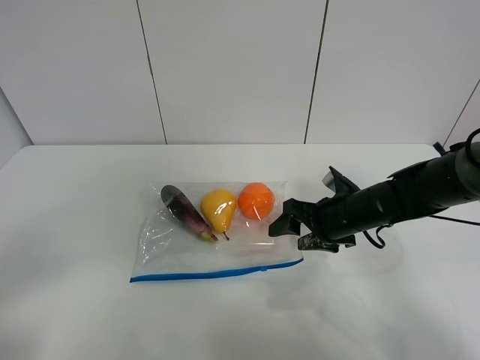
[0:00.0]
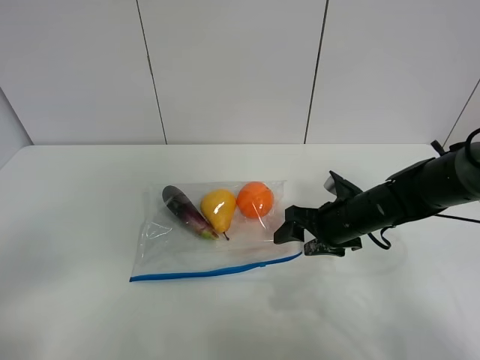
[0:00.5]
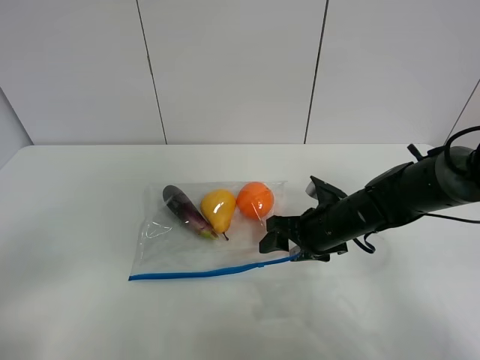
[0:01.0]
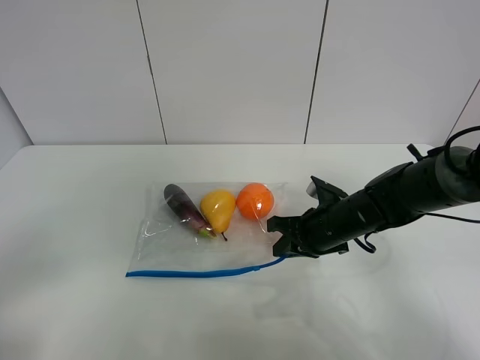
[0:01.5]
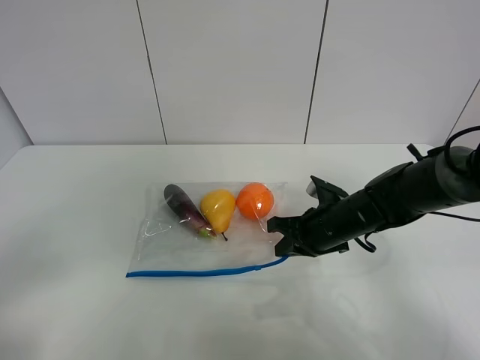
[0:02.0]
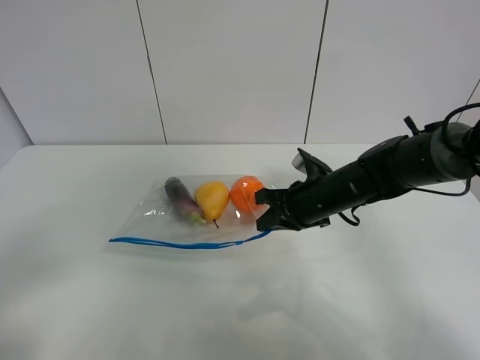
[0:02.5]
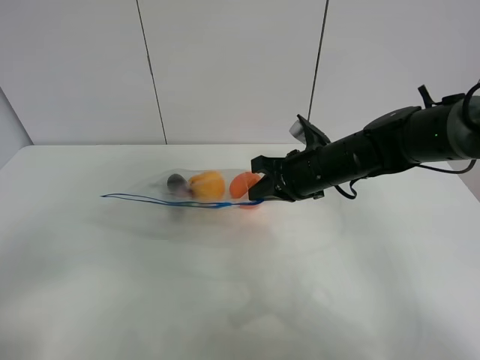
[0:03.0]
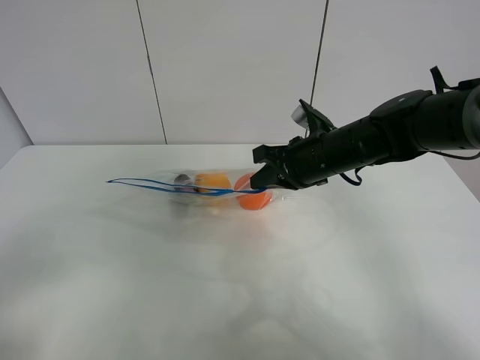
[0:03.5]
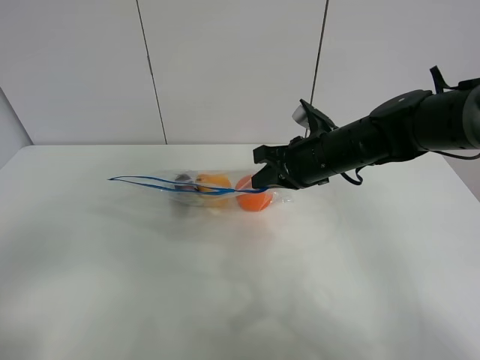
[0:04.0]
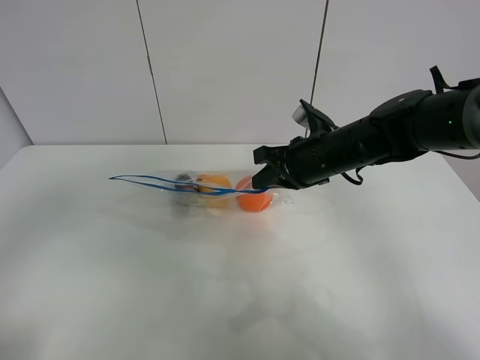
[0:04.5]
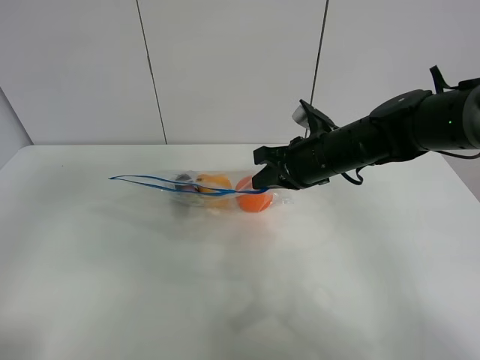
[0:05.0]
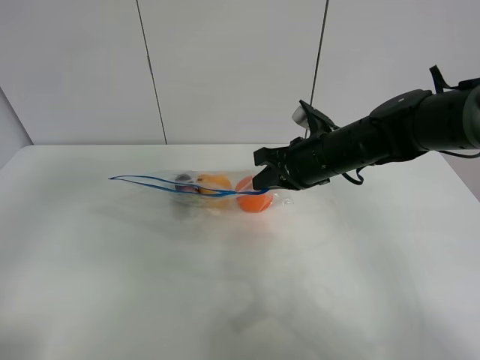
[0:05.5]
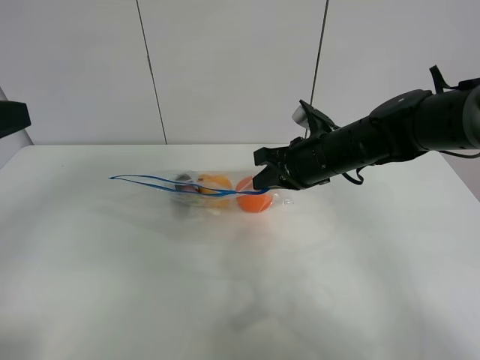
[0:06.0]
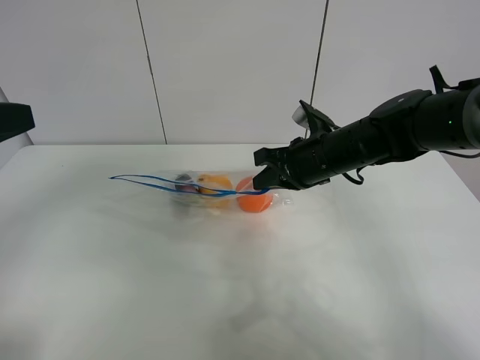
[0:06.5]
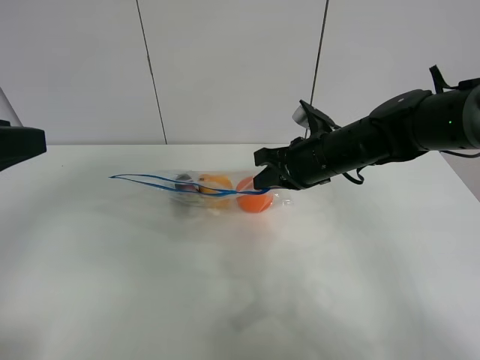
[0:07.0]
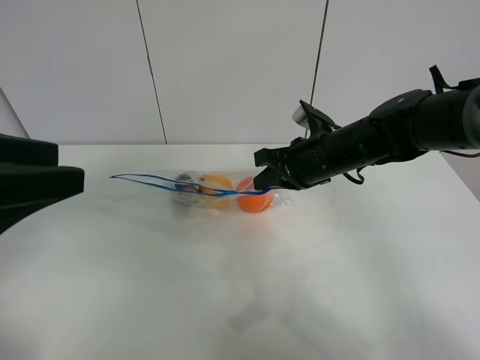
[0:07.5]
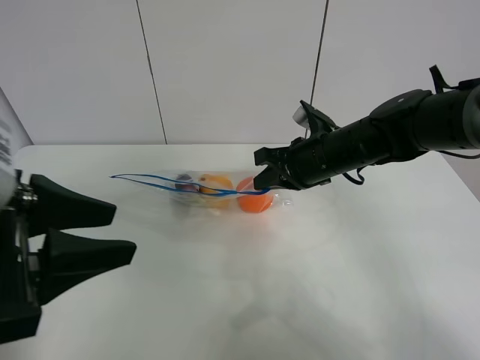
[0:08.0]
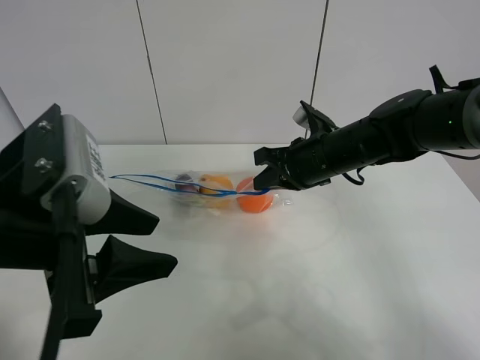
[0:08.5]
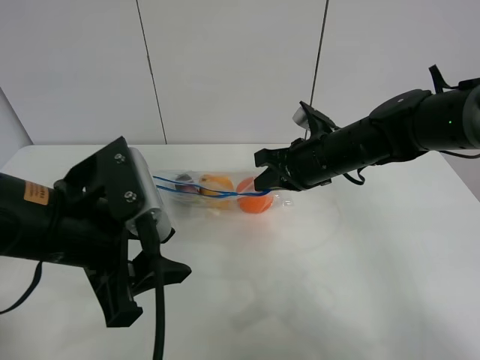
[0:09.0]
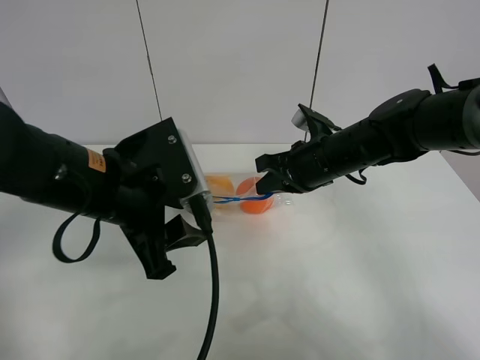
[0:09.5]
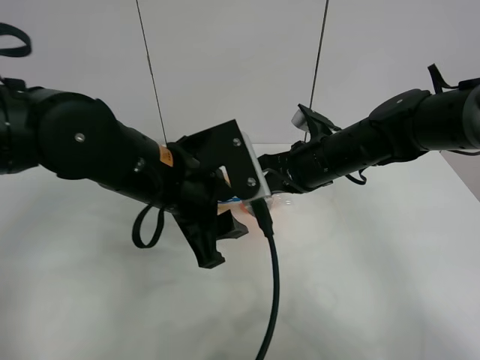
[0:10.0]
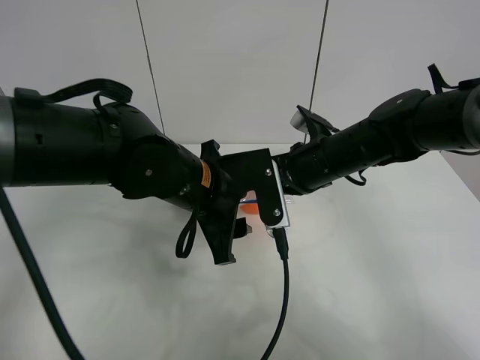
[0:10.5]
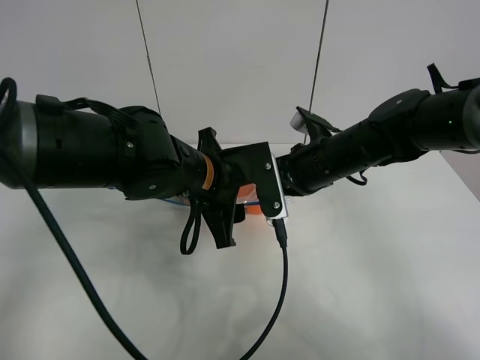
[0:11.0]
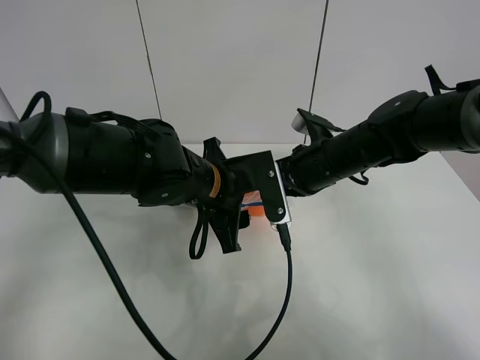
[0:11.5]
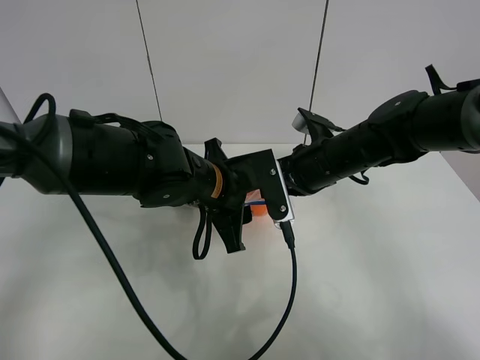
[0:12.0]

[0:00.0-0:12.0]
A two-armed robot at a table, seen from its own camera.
Step, 2.0 to 4.0 s: Lift the fruit bag with your right gripper.
0.0 to 2.0 s: The right gripper closes.
2.0 to 4.0 s: The right gripper is displaced upward by approximately 10 cm.
4.0 to 6.0 s: The left gripper moves forward, approximately 15 cm.
6.0 to 8.0 s: The left gripper goes roughly 10 cm to the right.
8.0 to 10.0 s: The left gripper goes some 15 cm to the right, forward and downward.
10.0 to 12.0 s: The left gripper heads downward, covering some 5 cm.

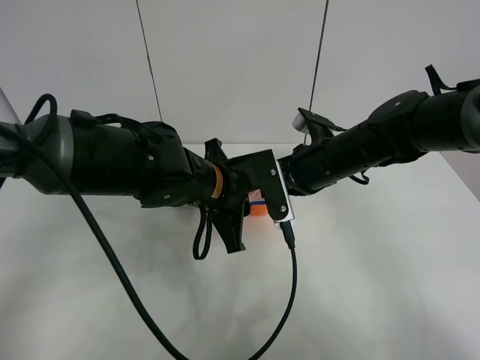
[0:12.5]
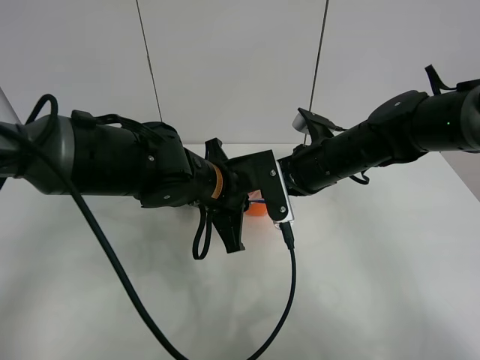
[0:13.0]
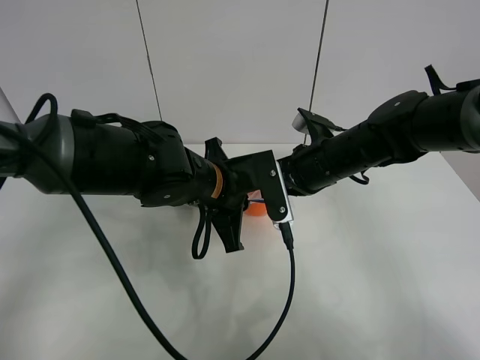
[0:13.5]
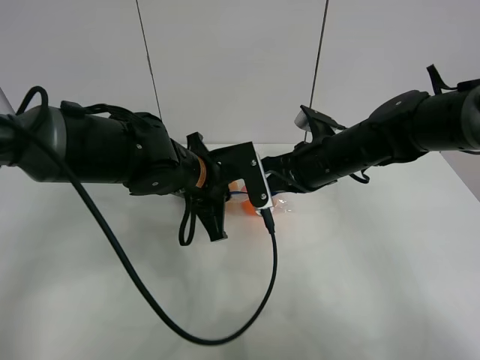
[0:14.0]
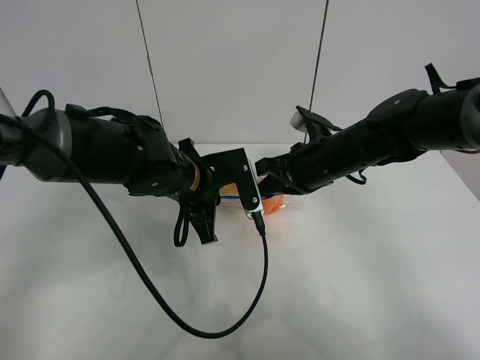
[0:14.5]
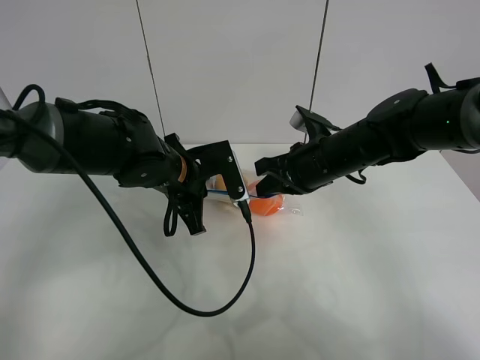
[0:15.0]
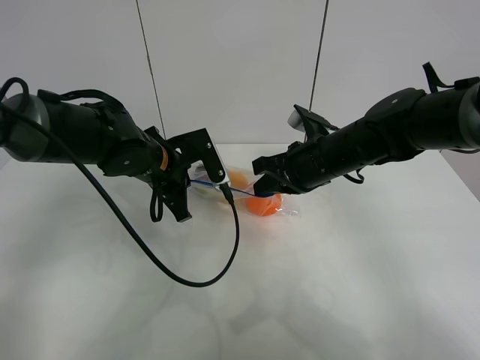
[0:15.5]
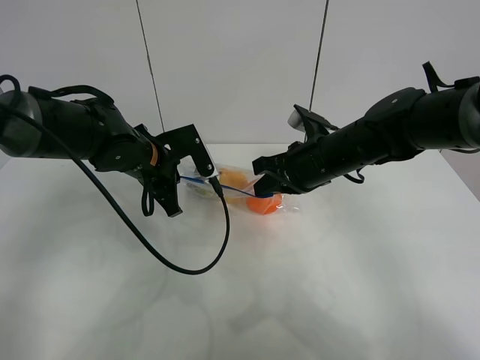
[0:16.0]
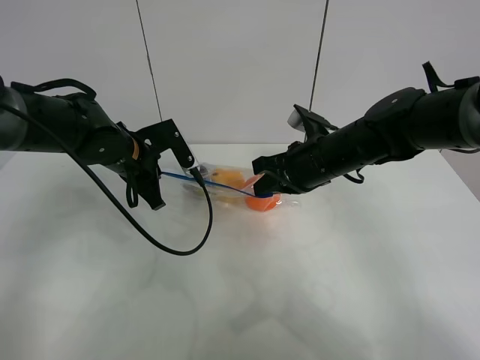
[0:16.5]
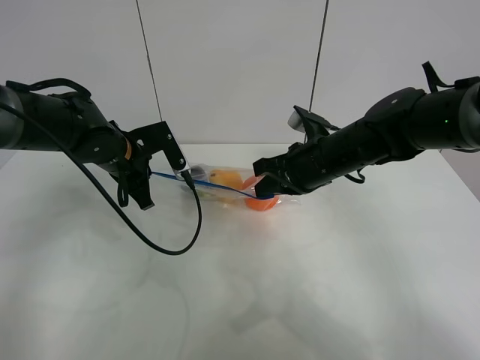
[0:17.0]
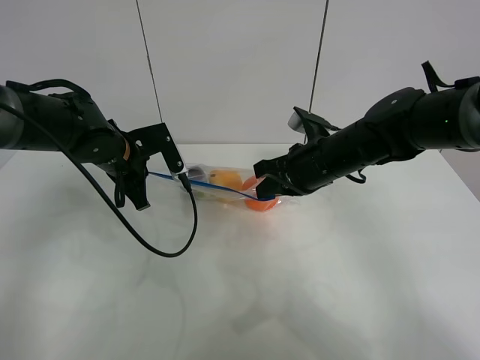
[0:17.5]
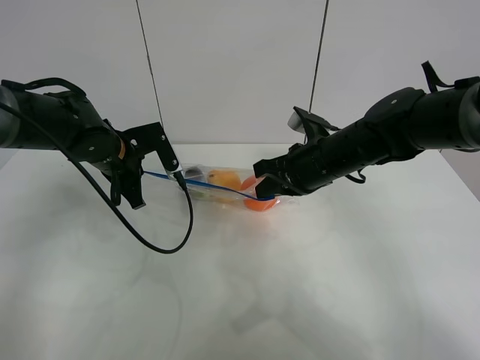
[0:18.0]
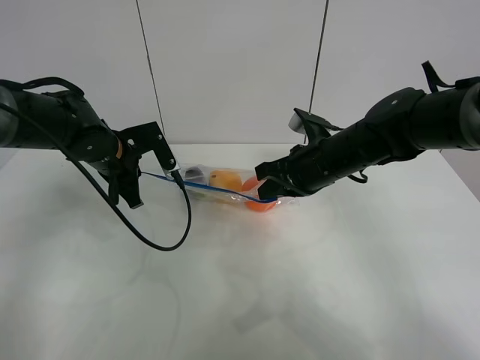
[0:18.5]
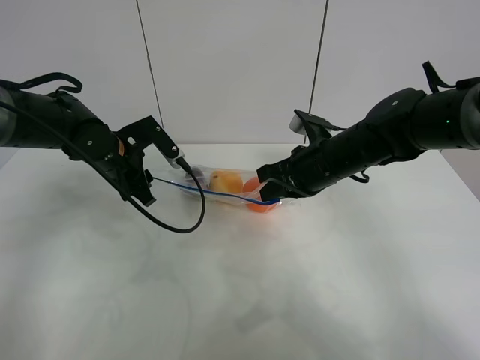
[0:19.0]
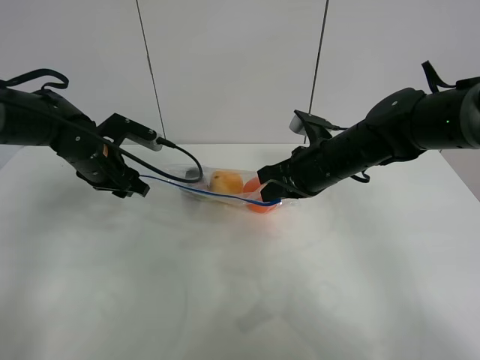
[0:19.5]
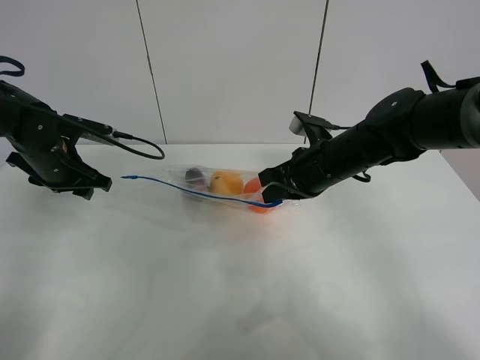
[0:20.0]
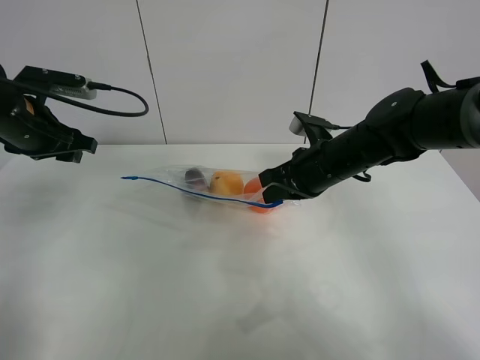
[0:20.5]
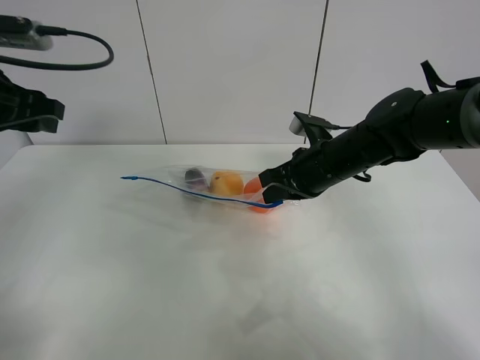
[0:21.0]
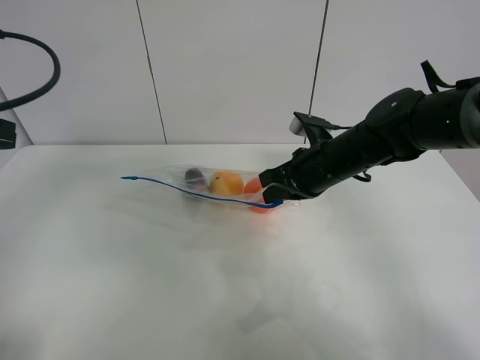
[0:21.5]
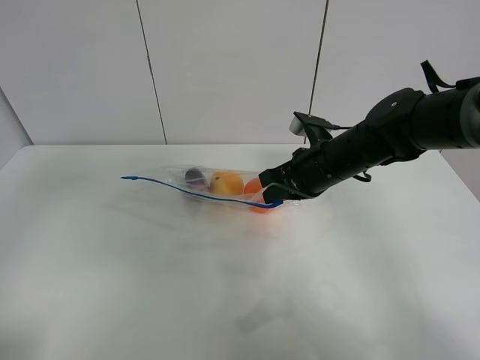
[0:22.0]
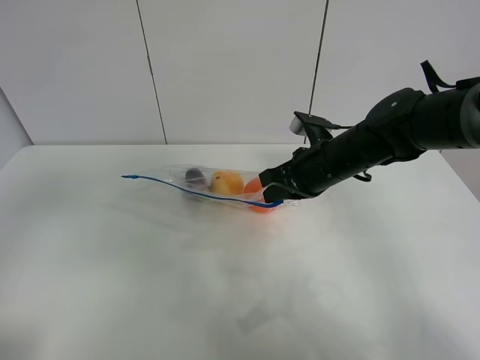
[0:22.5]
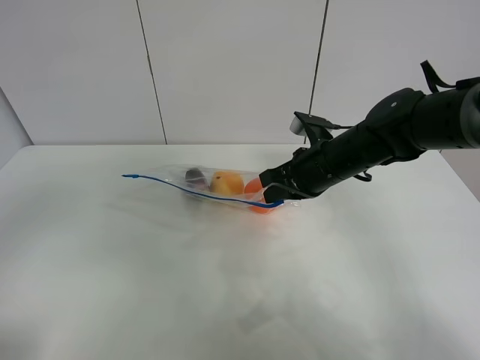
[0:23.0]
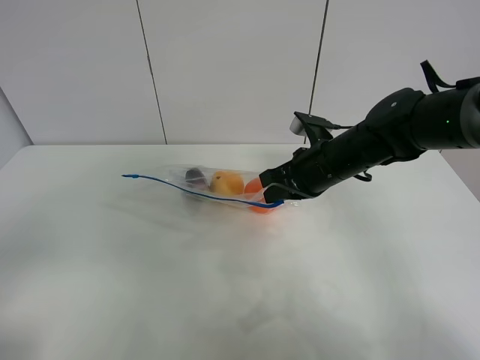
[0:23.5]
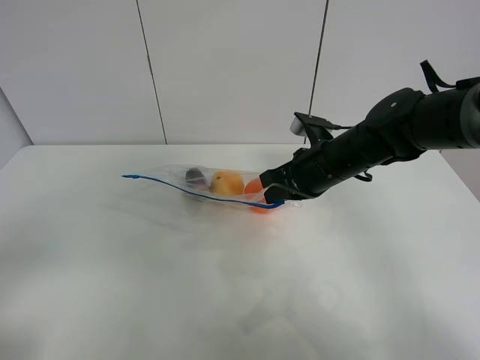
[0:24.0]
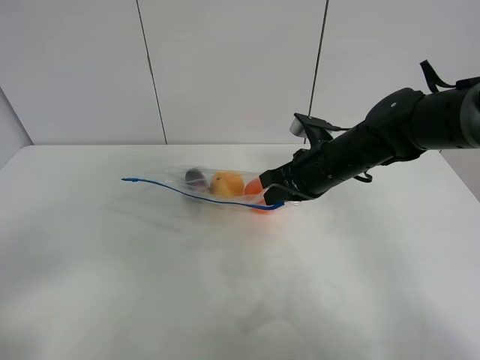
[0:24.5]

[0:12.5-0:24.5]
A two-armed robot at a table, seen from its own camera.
Step, 12.5 to 19.5 s: Pull the fruit bag with left gripper.
12.5 to 14.5 s: The grippers make only small movements.
14.5 to 16.5 s: The left gripper travels to the left and forward by approximately 10 cm.
16.5 to 18.5 s: The grippers move only a little.
18.5 to 20.5 s: The left gripper is displaced to the left and upward by roughly 10 cm, and opens up.
20.5 to 22.5 s: The left gripper is displaced backward and upward by about 30 cm.
22.5 to 24.5 s: The left gripper travels downward by roughly 10 cm.

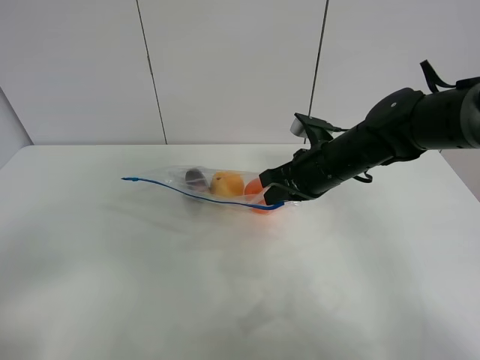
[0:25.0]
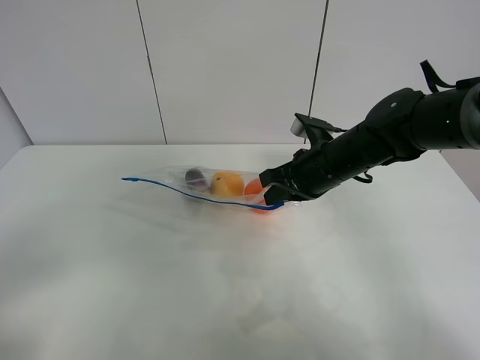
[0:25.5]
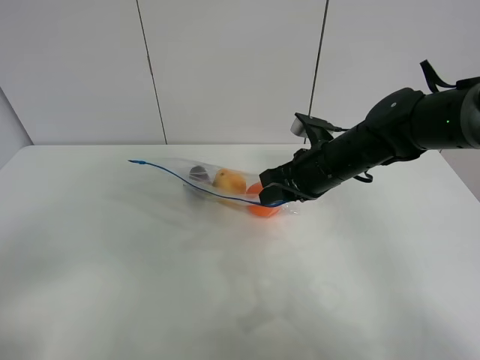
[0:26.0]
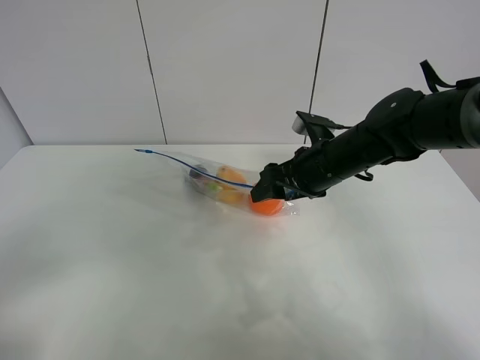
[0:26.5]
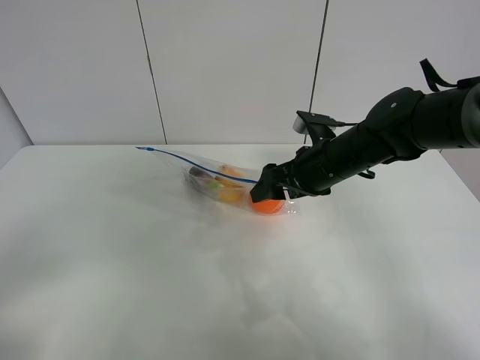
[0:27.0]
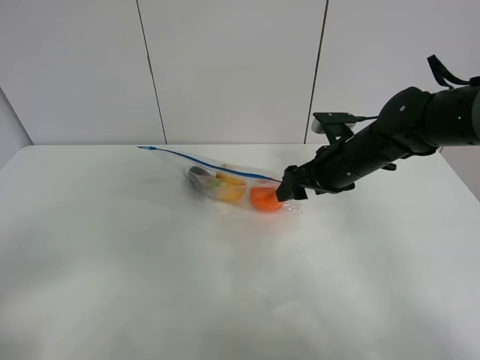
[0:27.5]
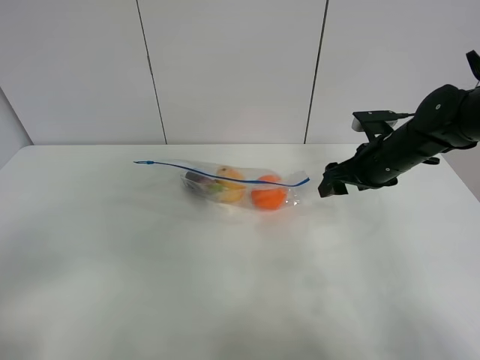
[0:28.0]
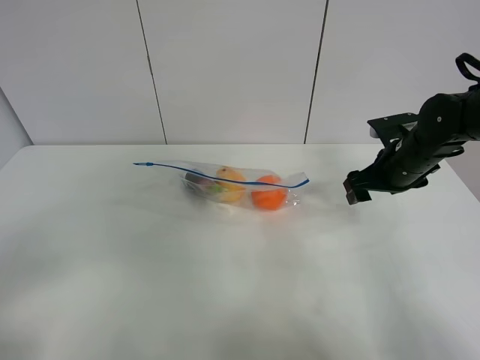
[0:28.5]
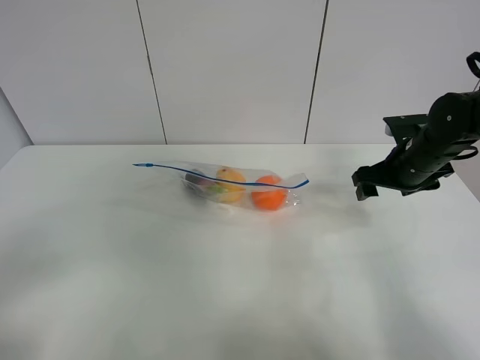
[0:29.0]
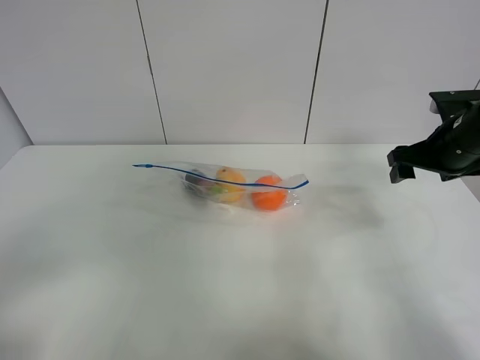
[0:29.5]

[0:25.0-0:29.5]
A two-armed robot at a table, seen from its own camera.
Step, 25.0 to 27.5 s: Place the fruit bag with right gripper.
25.0 to 27.0 s: The right gripper opens its fingers.
27.0 to 29.5 s: The right gripper shifts roughly 15 cm to the right.
